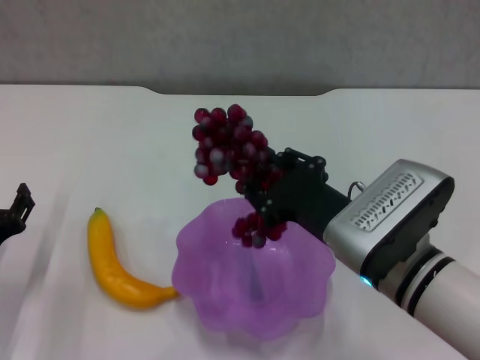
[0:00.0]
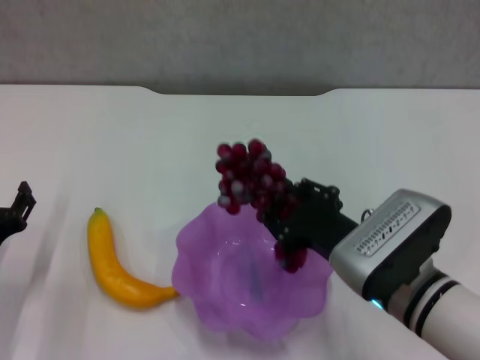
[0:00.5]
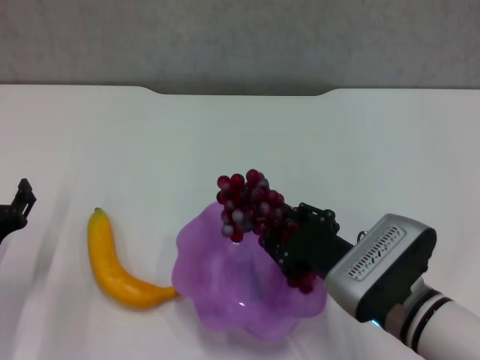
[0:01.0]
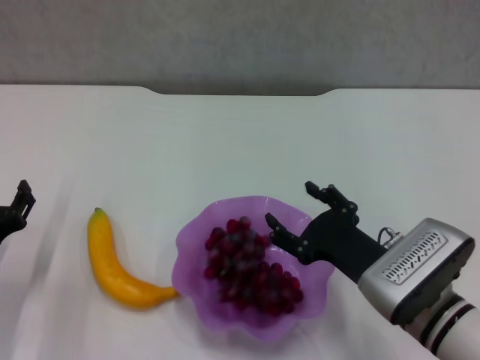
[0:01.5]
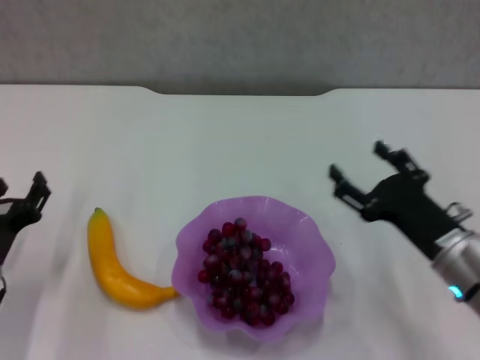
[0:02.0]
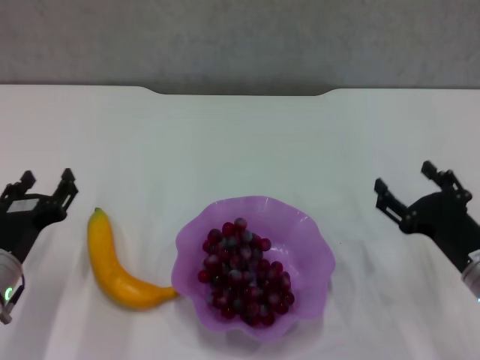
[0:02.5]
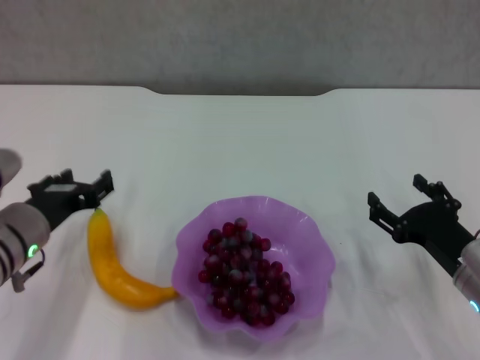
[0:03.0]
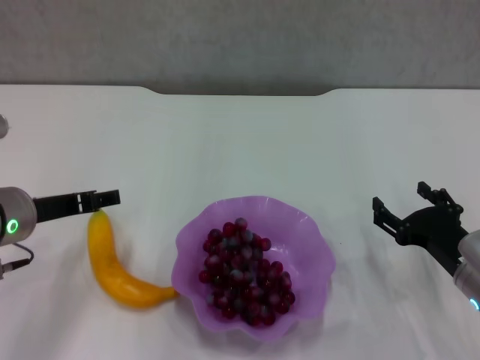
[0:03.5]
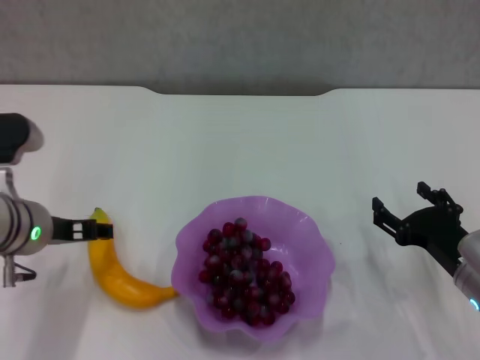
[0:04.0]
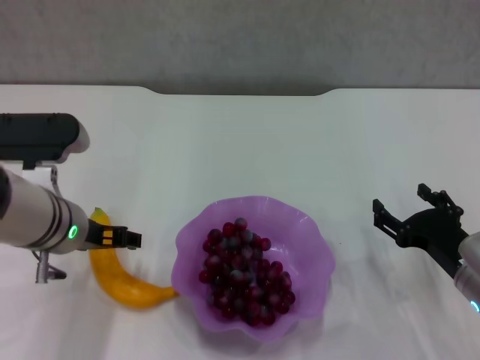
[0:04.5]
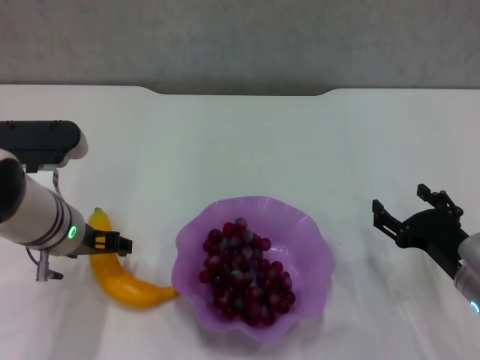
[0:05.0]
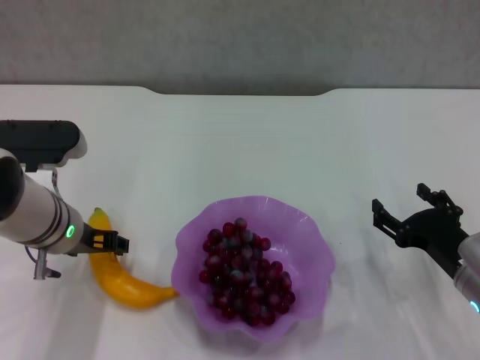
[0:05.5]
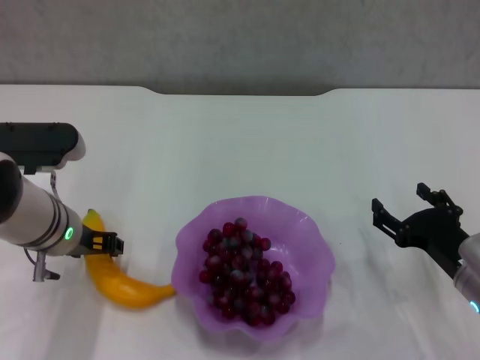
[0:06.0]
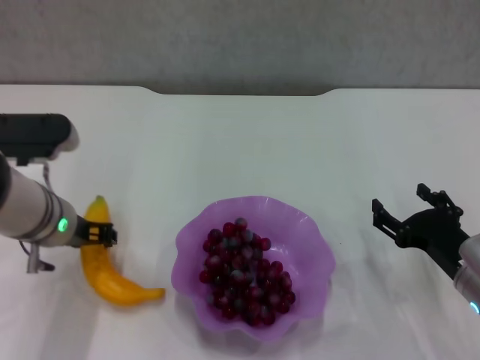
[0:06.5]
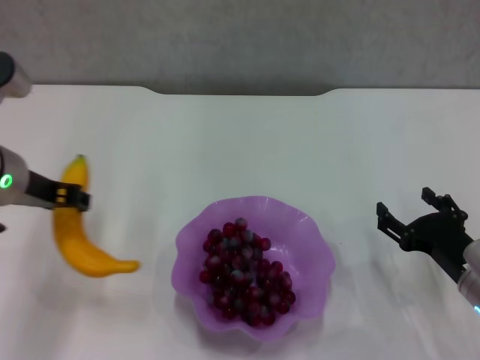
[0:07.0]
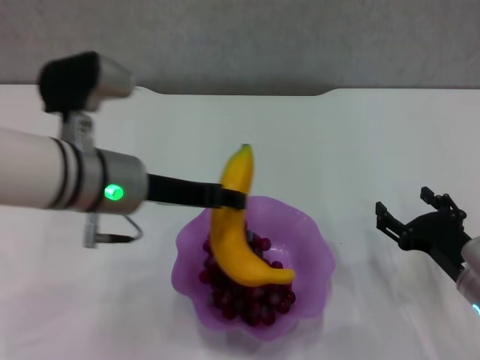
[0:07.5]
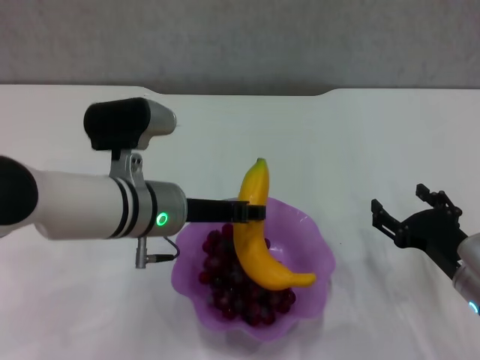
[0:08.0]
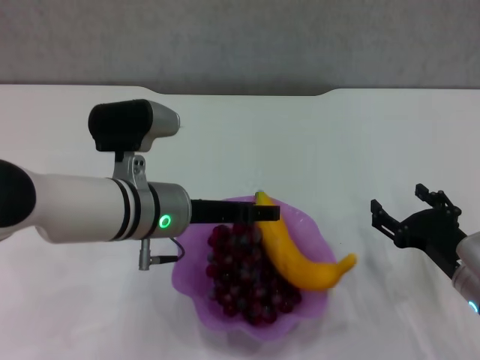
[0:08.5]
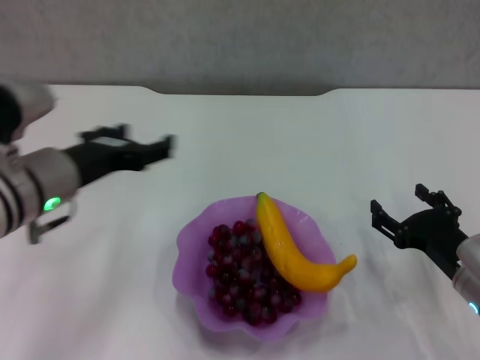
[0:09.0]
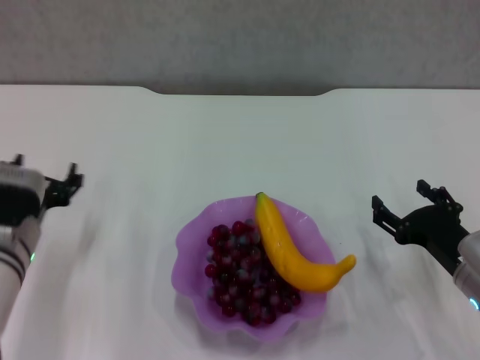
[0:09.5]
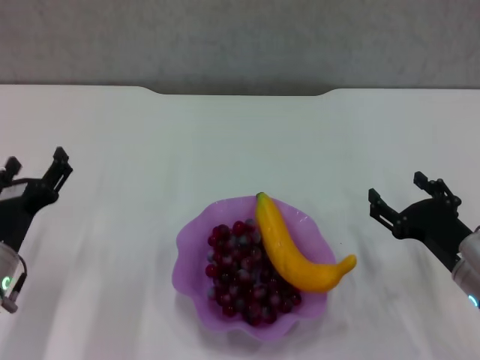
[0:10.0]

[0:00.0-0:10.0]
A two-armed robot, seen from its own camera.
Step, 0:02.0 to 0:06.0: Grasp the banana with left gripper.
Step, 0:06.5 to 0:08.5: Place the banana in the purple plate with left gripper.
0:00.0 to 0:02.0: The right gripper shifts some 10 cm to the right and downward, and opens.
0:02.0 to 0:04.0: The left gripper goes some 15 cm upward, to the right and forward, and opens its fingers.
0:04.0 to 0:06.0: The left gripper closes its fingers.
0:06.0 to 0:08.0: The left gripper shifts roughly 10 cm to the right, and closes.
0:08.0 to 0:10.0: The left gripper travels to the left, downward and backward by roughly 20 cm, and opens up.
